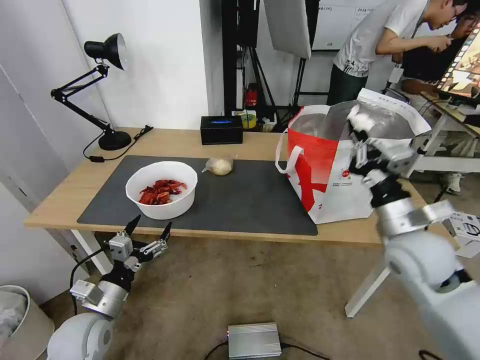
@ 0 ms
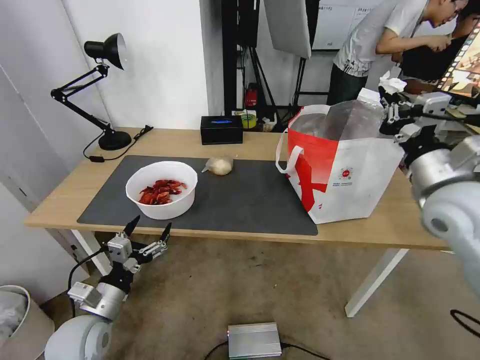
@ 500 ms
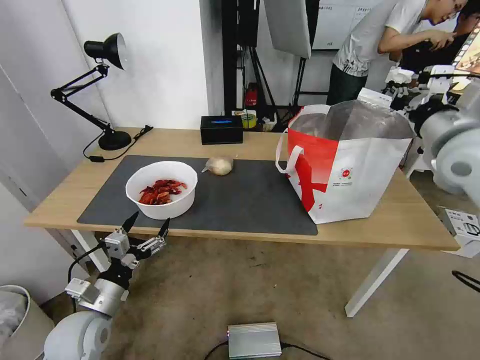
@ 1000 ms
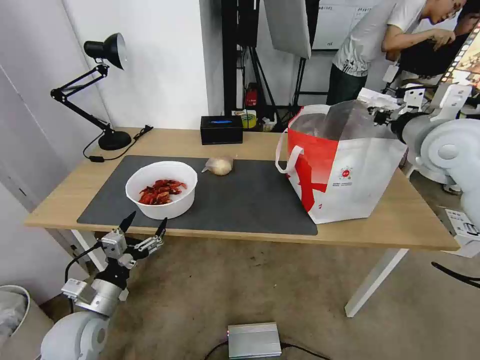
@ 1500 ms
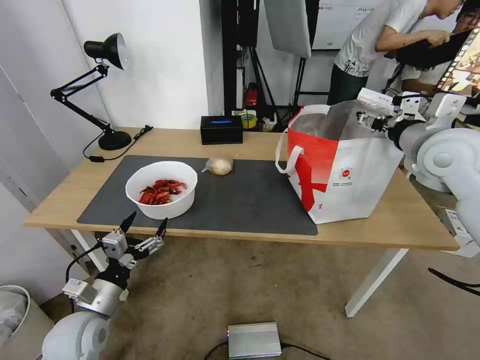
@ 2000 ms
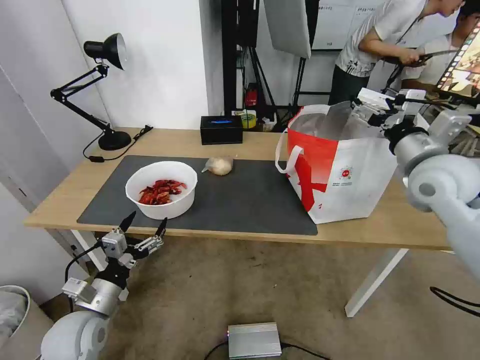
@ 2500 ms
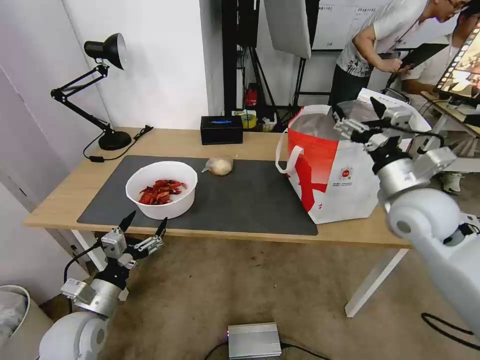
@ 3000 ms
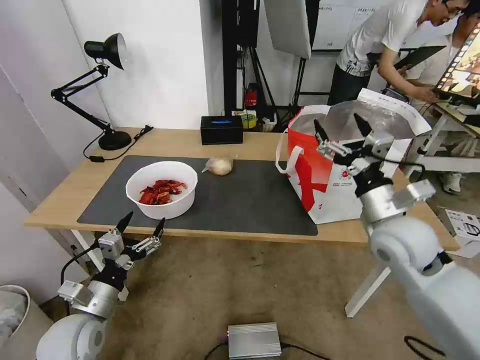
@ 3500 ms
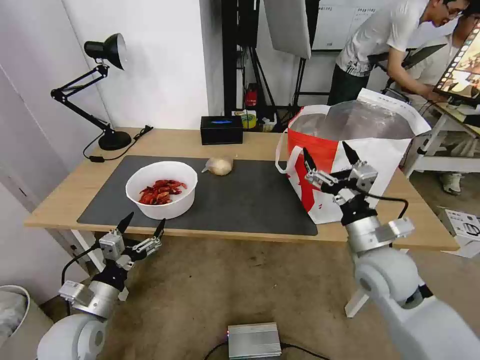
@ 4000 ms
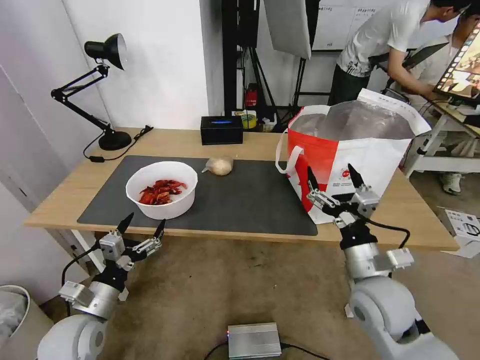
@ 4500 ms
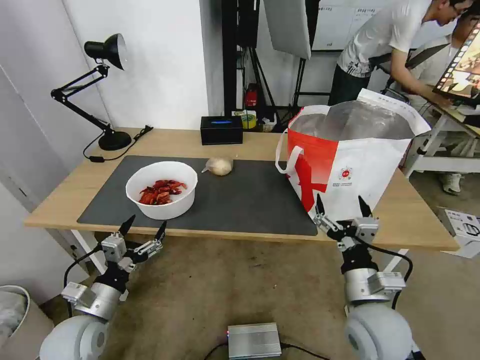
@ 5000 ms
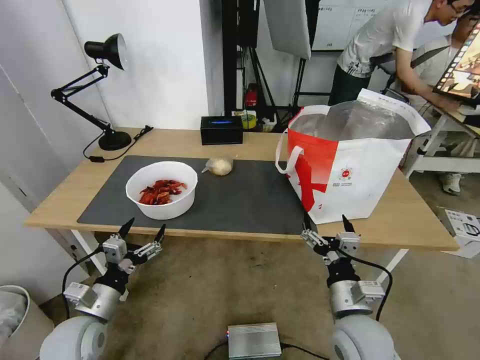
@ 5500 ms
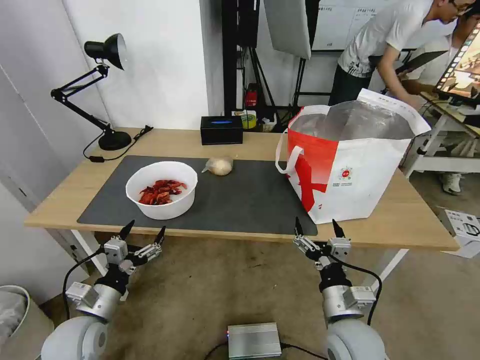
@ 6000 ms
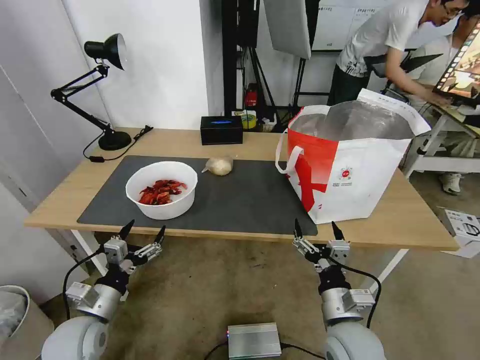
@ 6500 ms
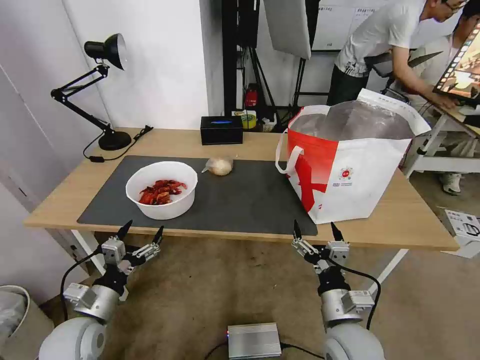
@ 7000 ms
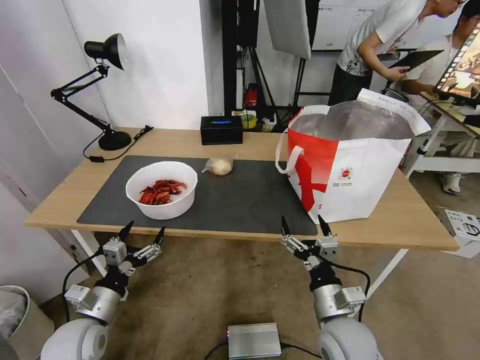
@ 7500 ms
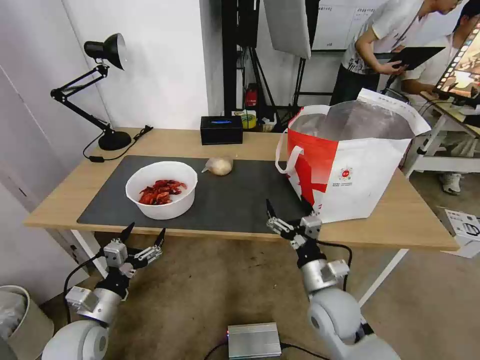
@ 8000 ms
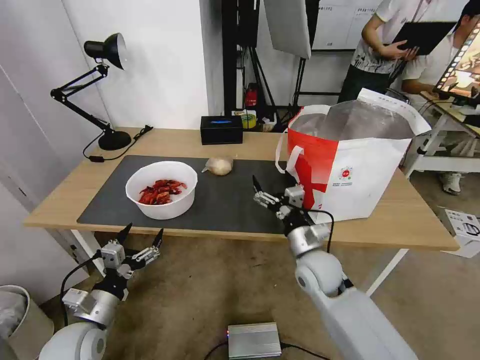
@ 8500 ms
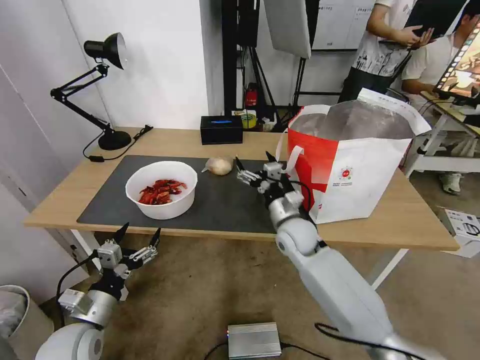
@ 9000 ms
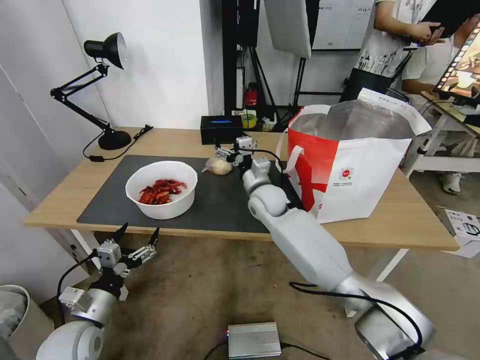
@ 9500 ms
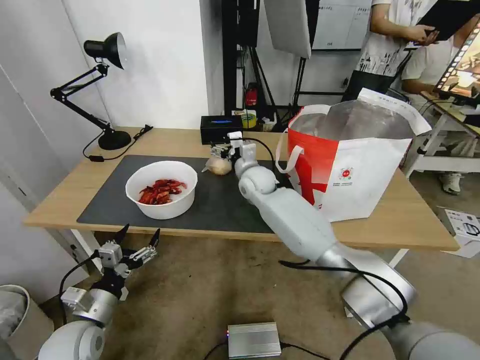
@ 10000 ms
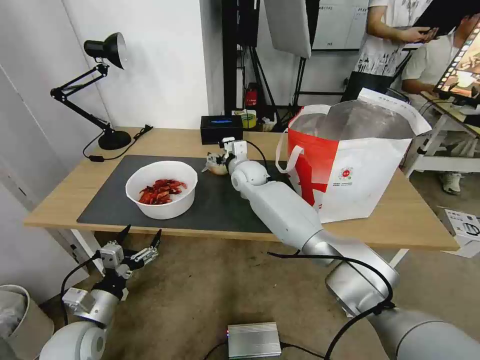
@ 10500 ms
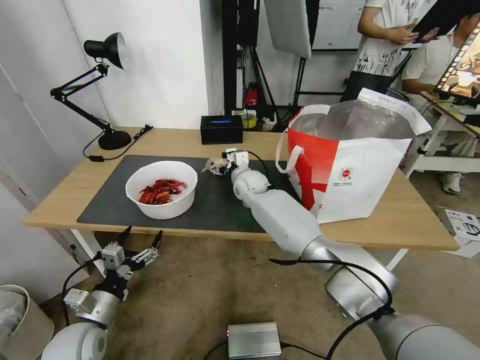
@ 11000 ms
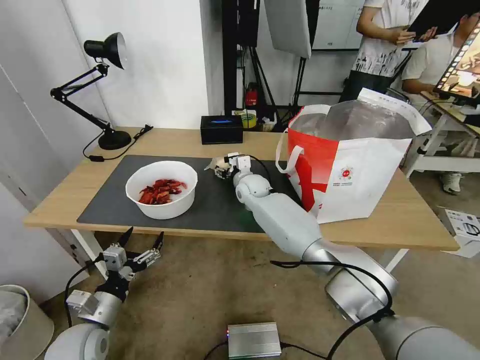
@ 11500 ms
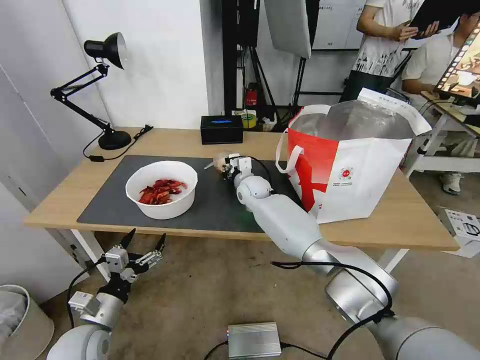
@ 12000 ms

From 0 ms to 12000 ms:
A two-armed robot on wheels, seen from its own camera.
Task of the whole recording: Pick up the trash from the table and place it into the takeout bag.
From 0 ms to 2000 ms: The right gripper travels upward and forward by approximately 20 cm, and opens up.
From 2000 ms to 4000 ms: The right gripper is displaced downward, backward and to the left by roughly 25 cm.
From 4000 ms to 6000 ms: The right gripper heads downward, backward and to the left, covering some 15 cm.
From 6000 ms to 8000 ms: The right gripper is displaced forward by about 5 cm.
From 8000 ms to 10000 ms: The right gripper moves forward and to the left, approximately 35 cm.
From 10000 ms to 12000 ms: The right gripper is displaced downward by roughly 5 cm, and closes up.

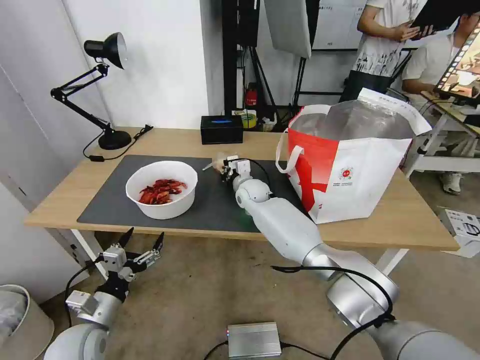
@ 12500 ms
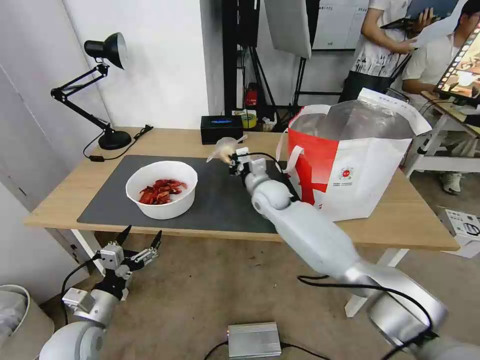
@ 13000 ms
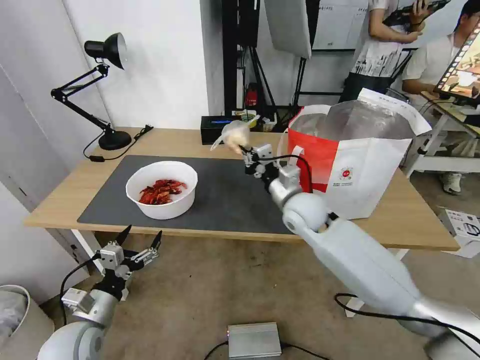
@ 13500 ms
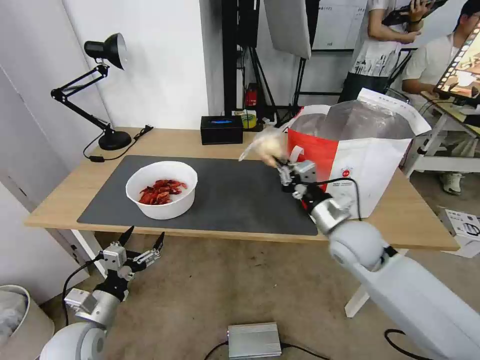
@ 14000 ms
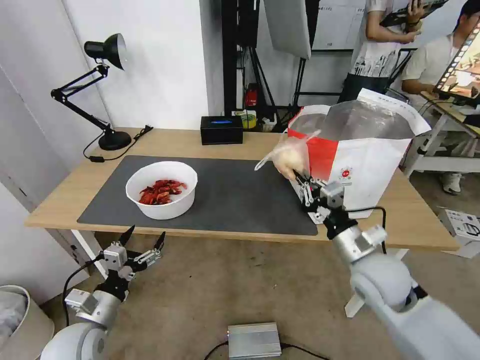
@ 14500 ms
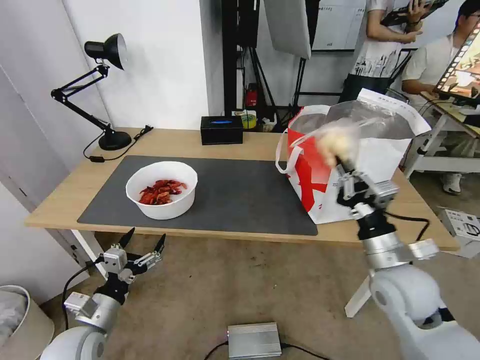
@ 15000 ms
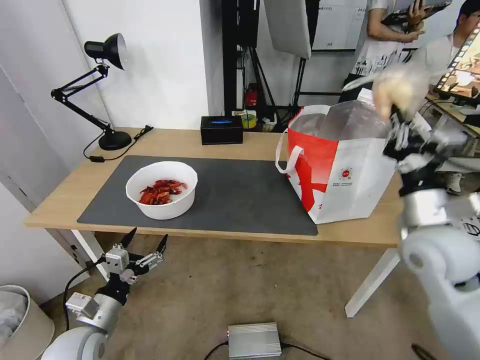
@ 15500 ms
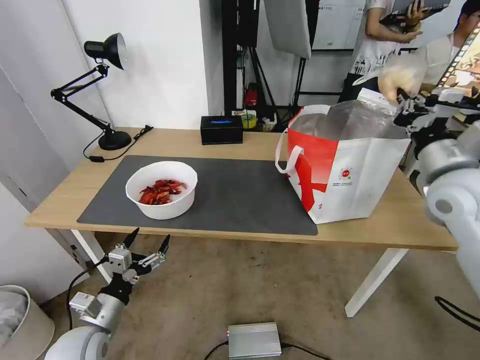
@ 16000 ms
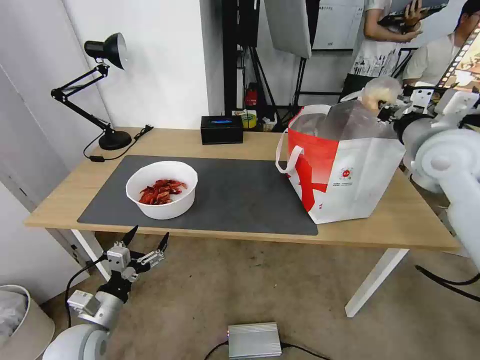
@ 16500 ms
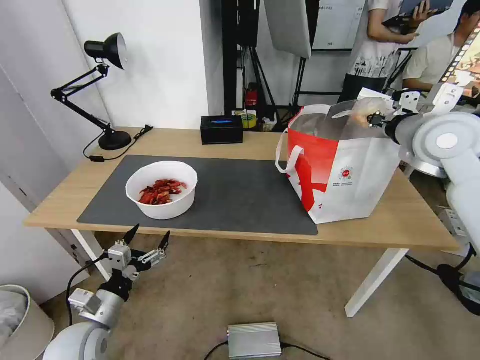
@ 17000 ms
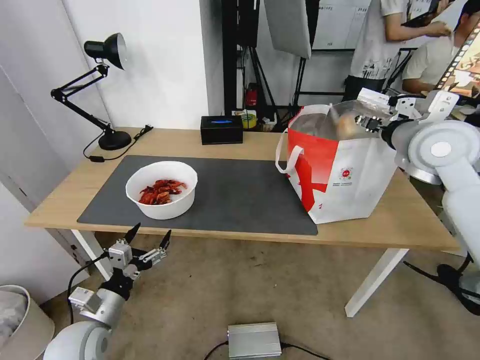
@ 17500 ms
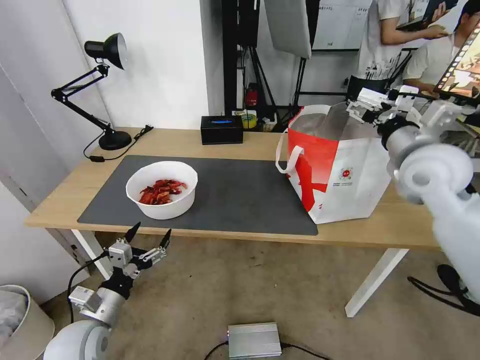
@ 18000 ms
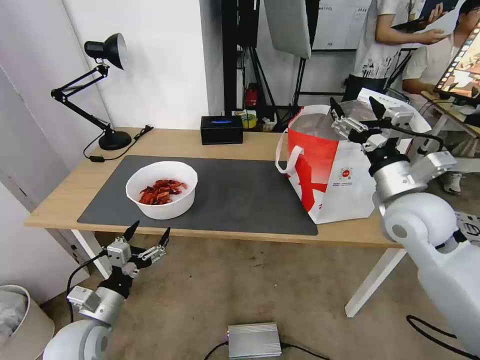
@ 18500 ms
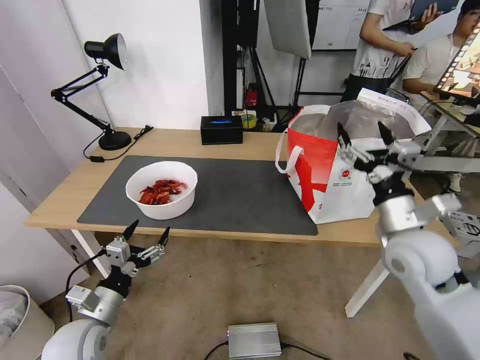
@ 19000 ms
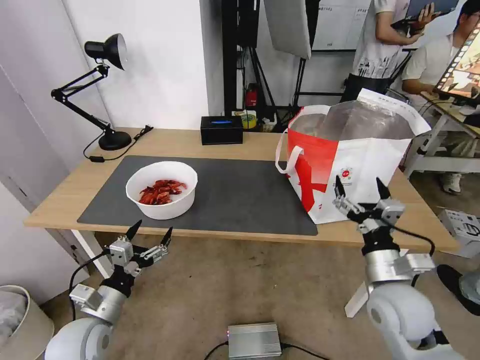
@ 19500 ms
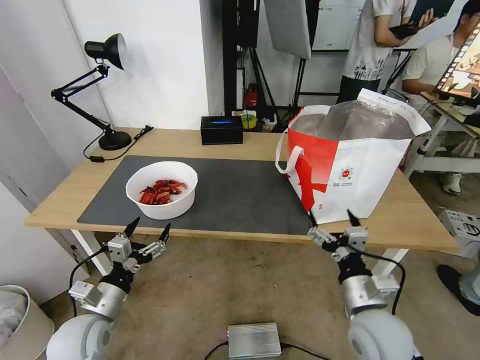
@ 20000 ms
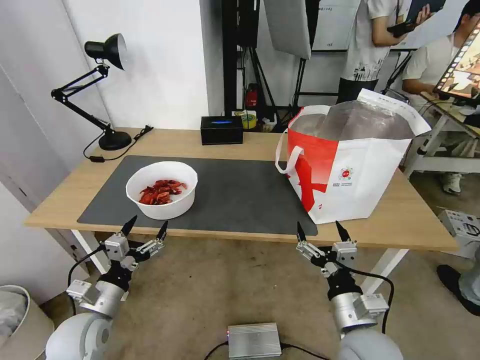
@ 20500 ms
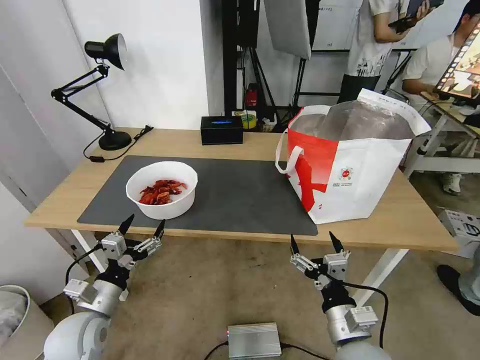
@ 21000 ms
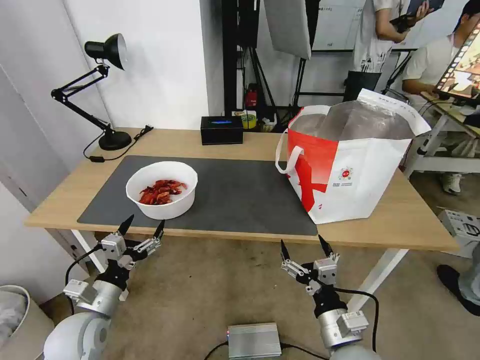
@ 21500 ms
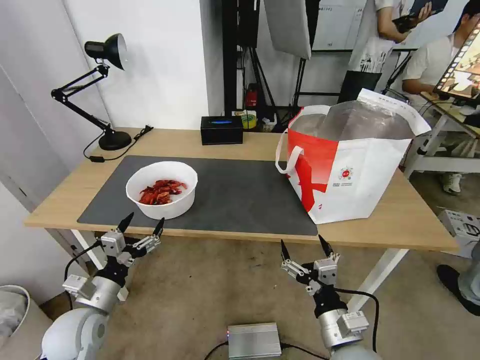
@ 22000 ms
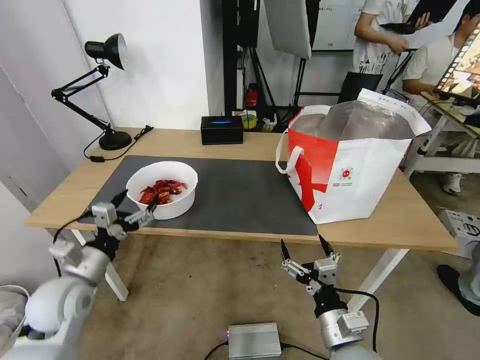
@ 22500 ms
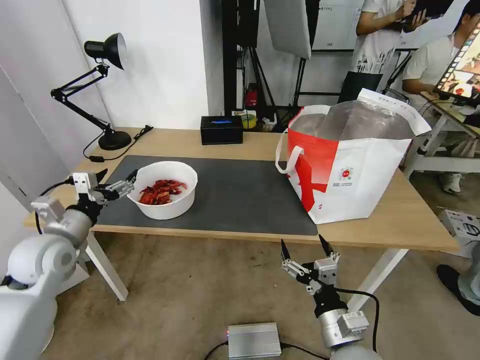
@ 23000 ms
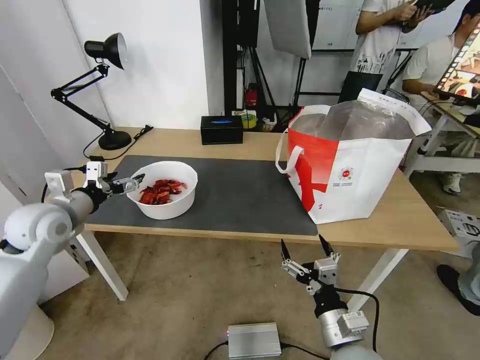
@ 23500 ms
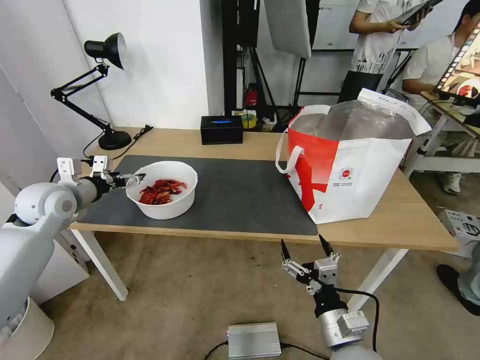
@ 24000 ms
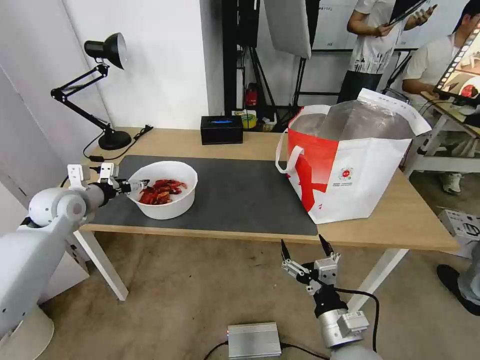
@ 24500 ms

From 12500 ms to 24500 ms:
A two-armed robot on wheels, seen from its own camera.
Task of the whole recording: Pick up the trash from the table and place it into the takeout bag.
From 12500 ms to 14500 ms: The right gripper heads backward and to the right, covering about 35 cm.
From 14500 ms to 16500 ms: The right gripper heads upward, forward and to the right, covering approximately 25 cm.
From 16500 ms to 18500 ms: The right gripper moves downward and backward, approximately 10 cm, and opens its fingers.
From 18500 ms to 20500 ms: The right gripper goes approximately 25 cm downward, backward and to the left.
From 20500 ms to 22500 ms: The left gripper goes roughly 5 cm upward.
From 22500 ms to 24500 ms: The left gripper is displaced forward and upward by about 20 cm.

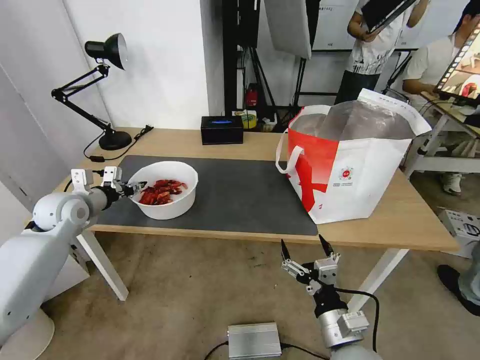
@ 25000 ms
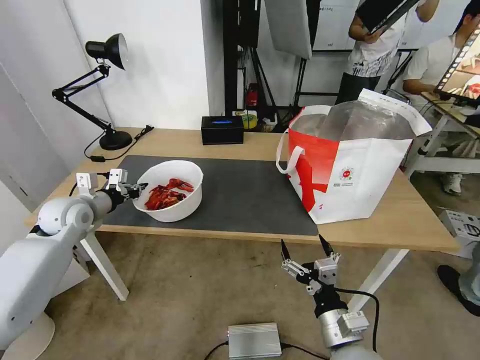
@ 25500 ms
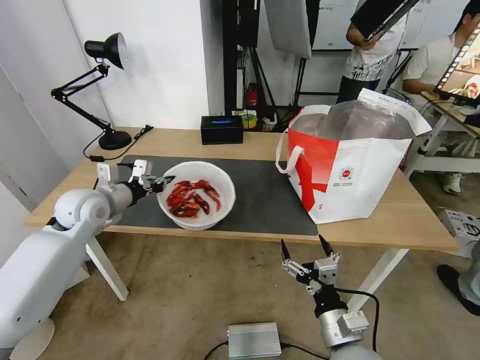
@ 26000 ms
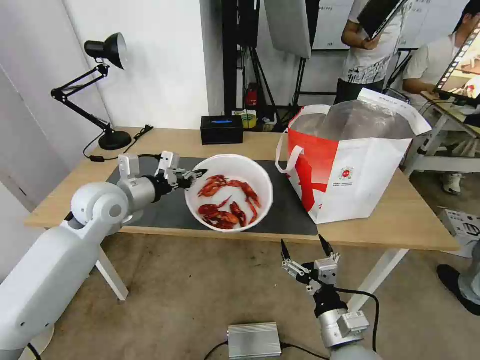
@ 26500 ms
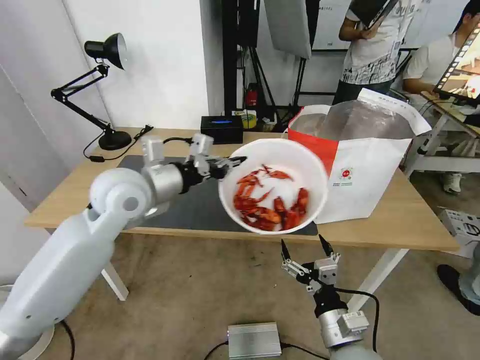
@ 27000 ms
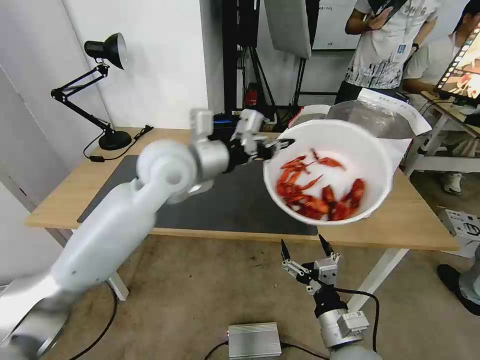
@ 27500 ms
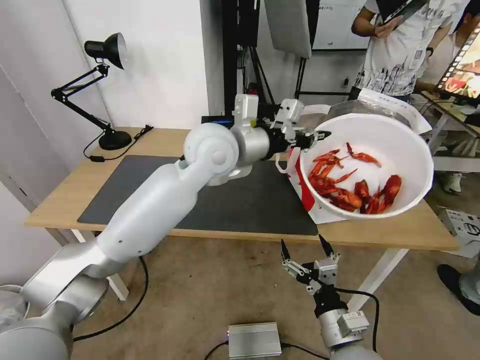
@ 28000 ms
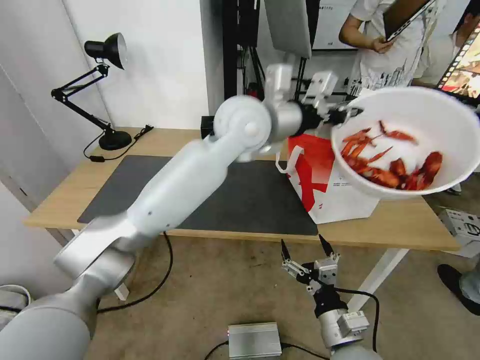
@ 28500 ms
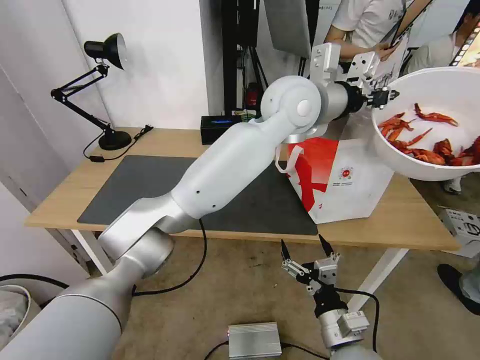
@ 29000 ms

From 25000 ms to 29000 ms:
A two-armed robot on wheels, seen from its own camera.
Task of the whole recording: Pick up the trash from the table and place it into the takeout bag.
From 25000 ms to 27000 ms: The left gripper shifts approximately 20 cm to the right and upward, and closes up.
From 27000 ms to 29000 ms: The left gripper moves to the right and upward, about 30 cm.
